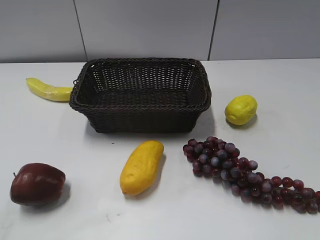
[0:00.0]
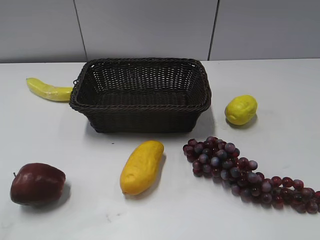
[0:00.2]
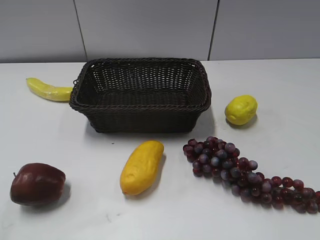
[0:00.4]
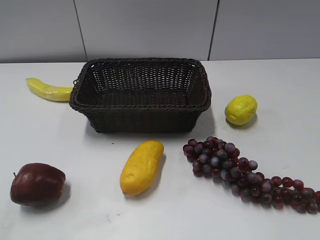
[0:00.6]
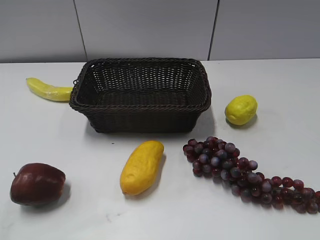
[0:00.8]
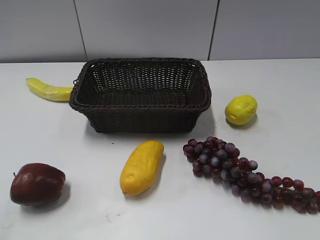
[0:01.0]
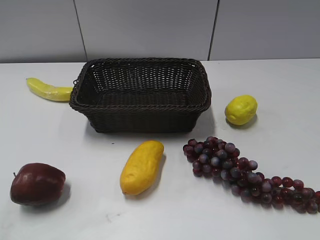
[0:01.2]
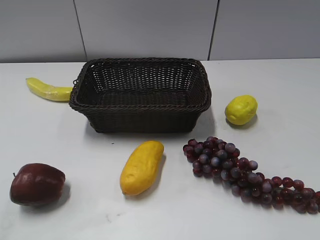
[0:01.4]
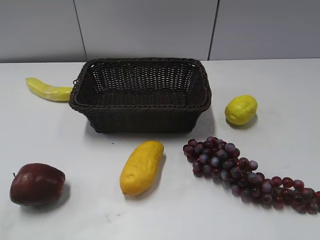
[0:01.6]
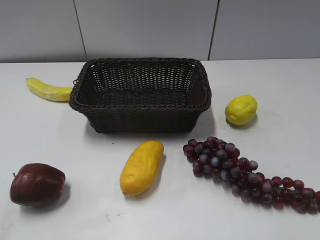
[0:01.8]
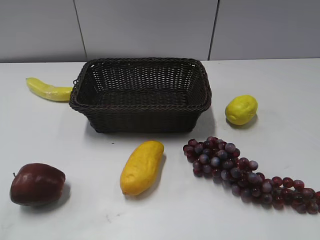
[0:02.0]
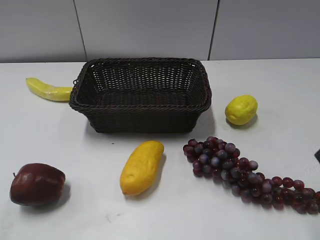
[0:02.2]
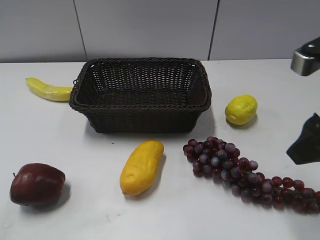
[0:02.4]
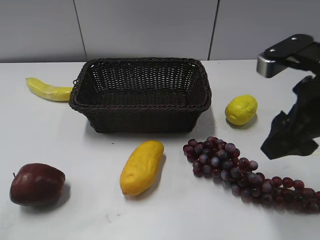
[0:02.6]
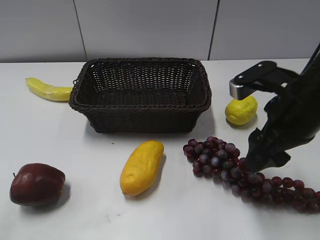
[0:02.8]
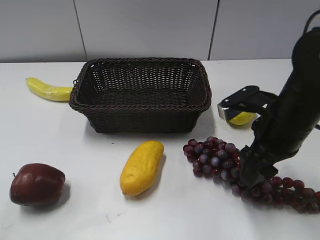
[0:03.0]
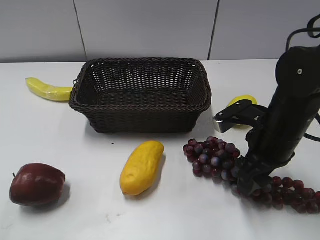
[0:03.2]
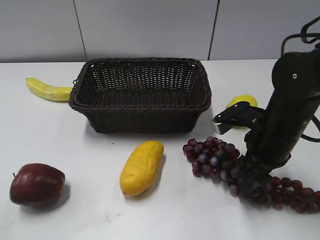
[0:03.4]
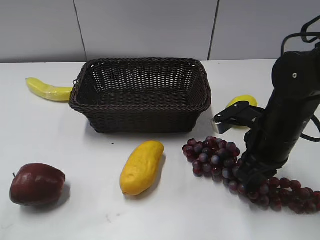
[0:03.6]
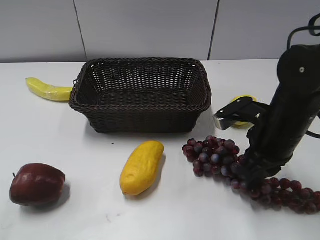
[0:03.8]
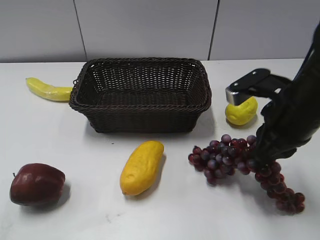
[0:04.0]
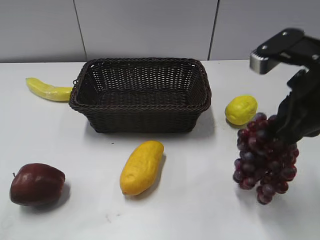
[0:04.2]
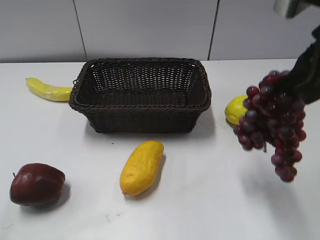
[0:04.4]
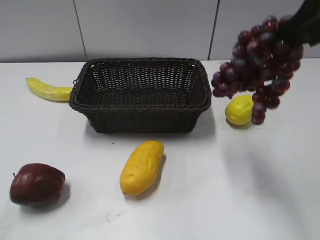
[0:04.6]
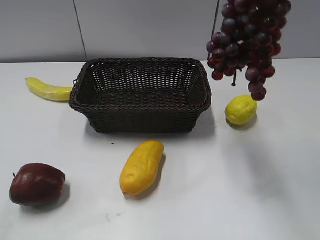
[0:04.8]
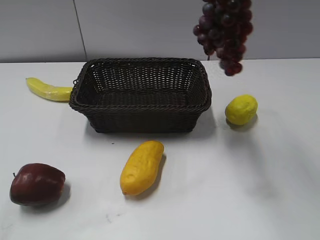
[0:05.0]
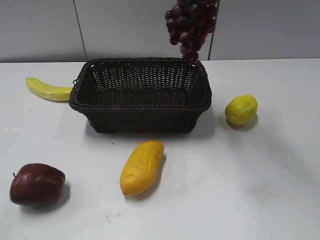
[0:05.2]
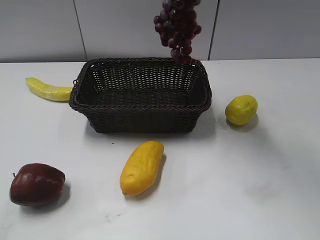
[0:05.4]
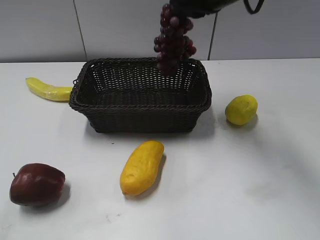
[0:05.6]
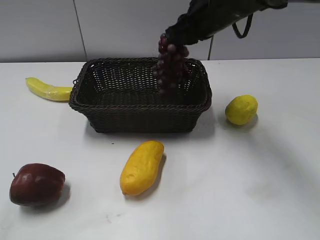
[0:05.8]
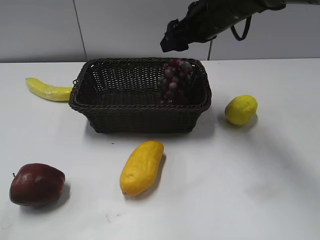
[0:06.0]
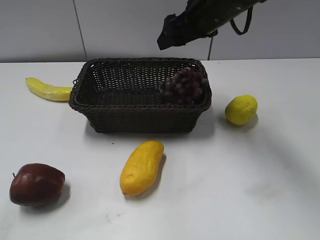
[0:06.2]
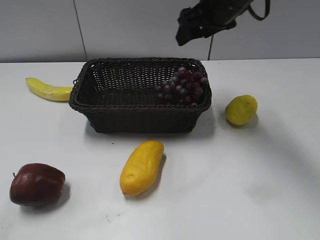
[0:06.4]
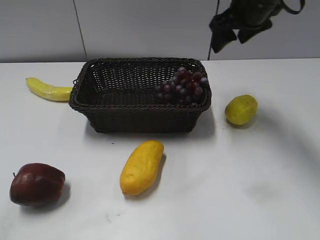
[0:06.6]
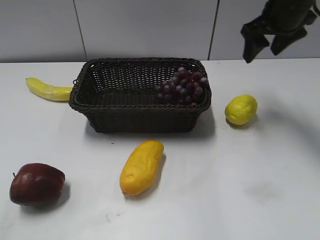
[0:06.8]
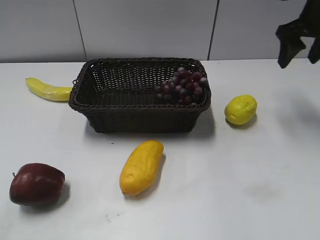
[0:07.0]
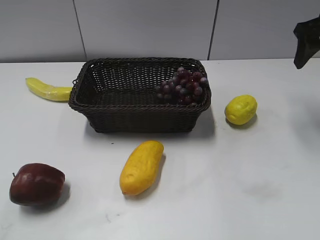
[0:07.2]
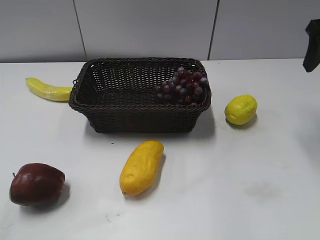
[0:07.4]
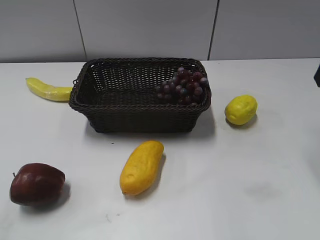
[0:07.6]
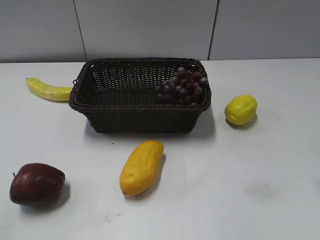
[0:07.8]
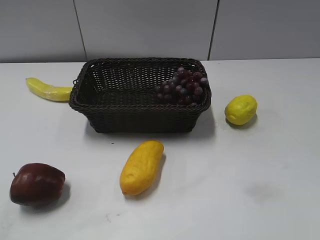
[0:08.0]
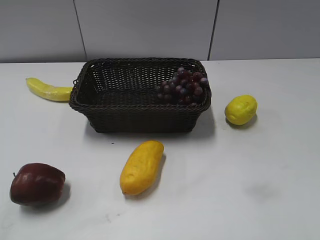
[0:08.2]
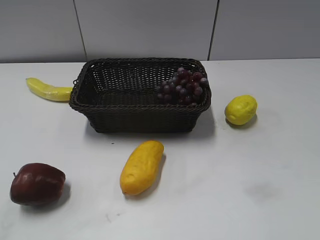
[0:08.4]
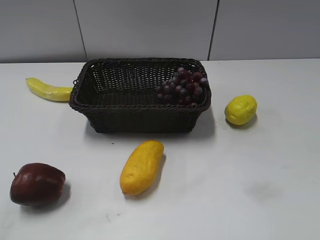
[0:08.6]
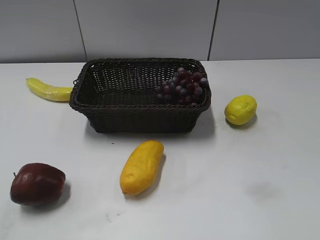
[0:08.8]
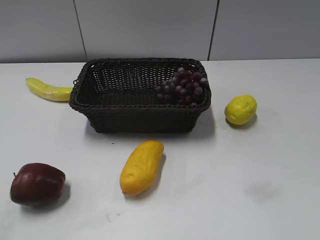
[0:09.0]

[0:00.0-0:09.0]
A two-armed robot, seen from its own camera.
Step, 0:02.2 to 0:04.0: Grasp the grape with right gripper.
Step, 0:04.2 to 0:06.0: Place the grape in the basket with right gripper.
0:01.6 to 0:03.0: The right gripper goes about 25 cm forward, downward and to the left.
0:03.0 to 0:04.4: The right gripper shifts approximately 15 cm upward, and closes up.
0:04.4 to 0:06.0: The right gripper moves forward, to the left and downward, roughly 25 cm, and opens up.
0:06.0 to 0:07.6: The right gripper travels to the right and backward by roughly 25 cm.

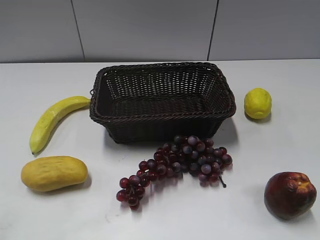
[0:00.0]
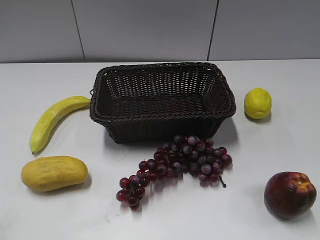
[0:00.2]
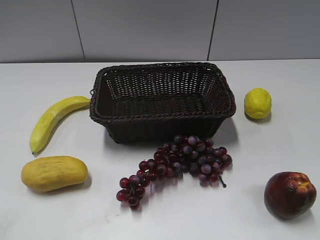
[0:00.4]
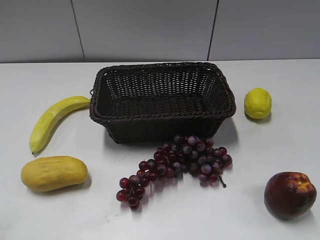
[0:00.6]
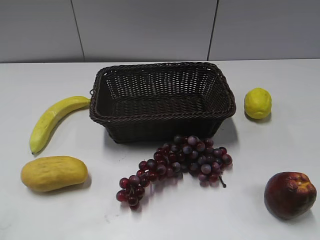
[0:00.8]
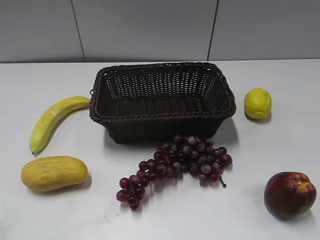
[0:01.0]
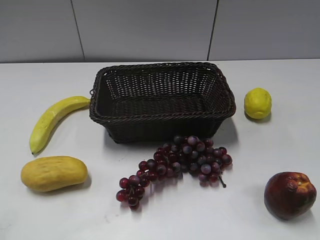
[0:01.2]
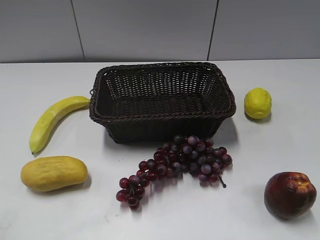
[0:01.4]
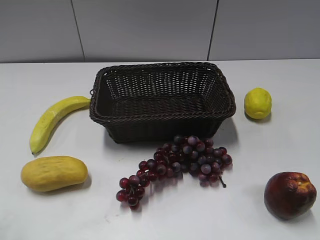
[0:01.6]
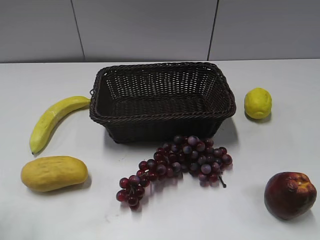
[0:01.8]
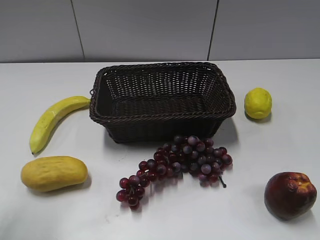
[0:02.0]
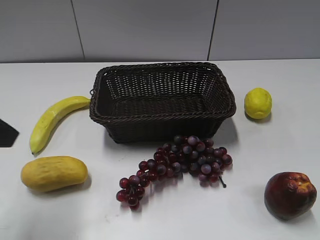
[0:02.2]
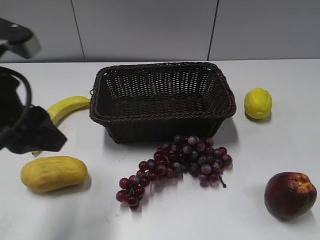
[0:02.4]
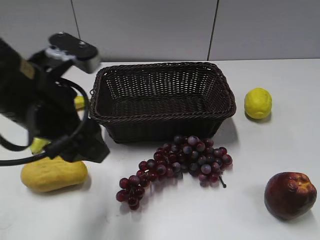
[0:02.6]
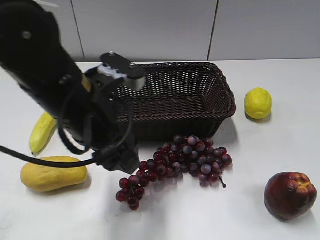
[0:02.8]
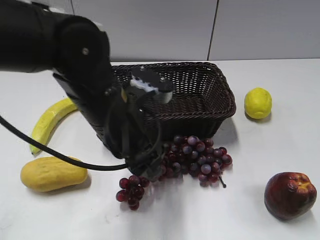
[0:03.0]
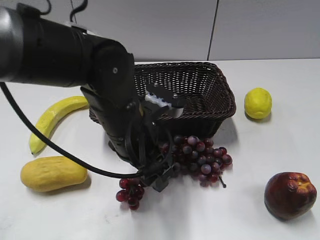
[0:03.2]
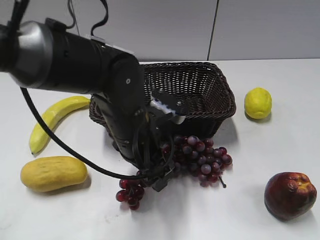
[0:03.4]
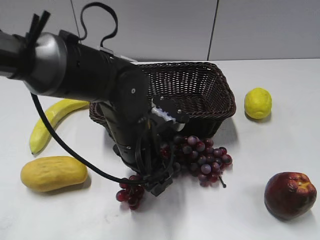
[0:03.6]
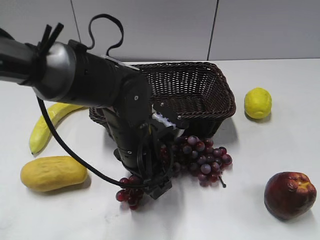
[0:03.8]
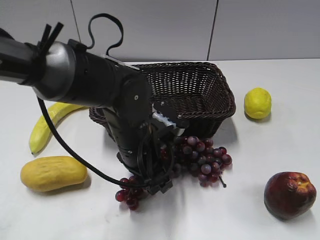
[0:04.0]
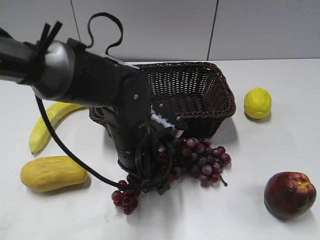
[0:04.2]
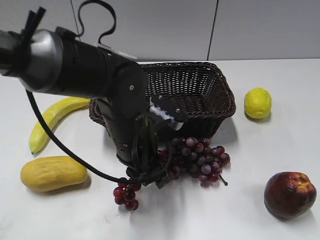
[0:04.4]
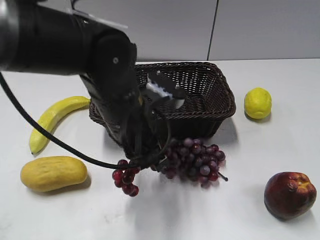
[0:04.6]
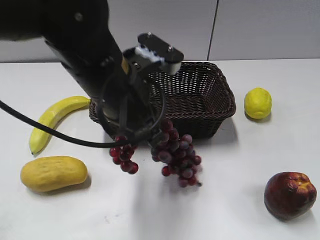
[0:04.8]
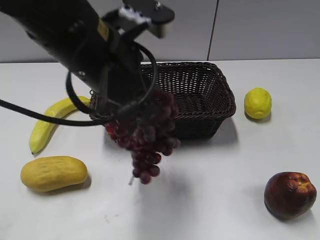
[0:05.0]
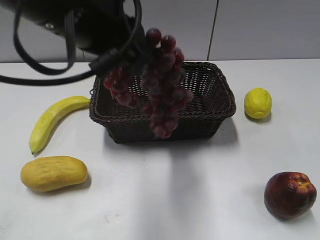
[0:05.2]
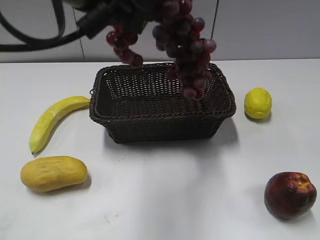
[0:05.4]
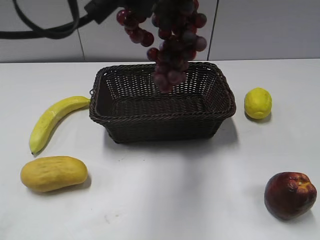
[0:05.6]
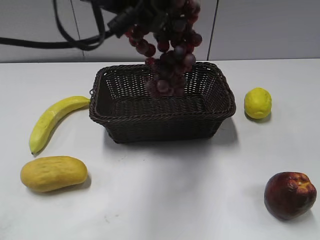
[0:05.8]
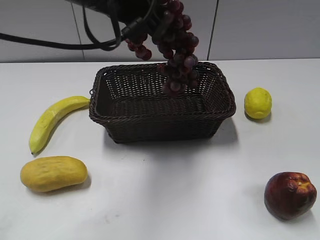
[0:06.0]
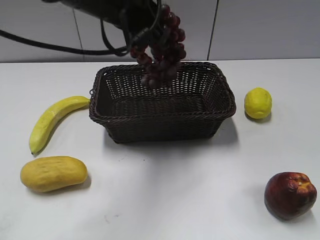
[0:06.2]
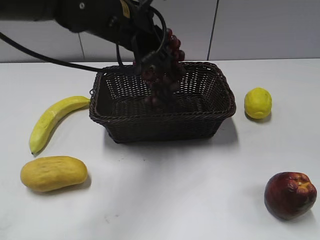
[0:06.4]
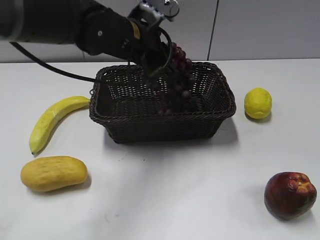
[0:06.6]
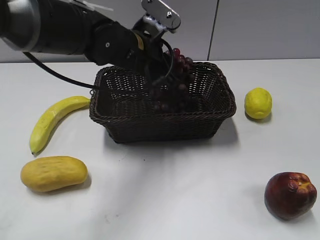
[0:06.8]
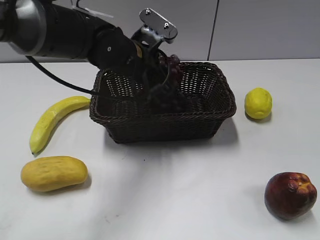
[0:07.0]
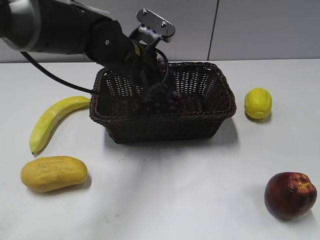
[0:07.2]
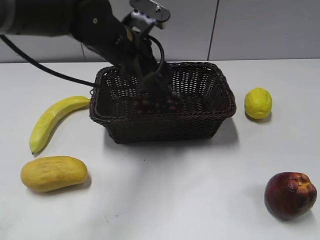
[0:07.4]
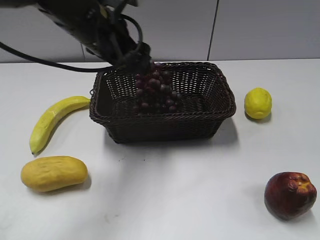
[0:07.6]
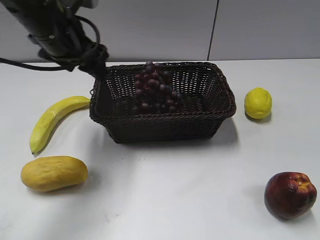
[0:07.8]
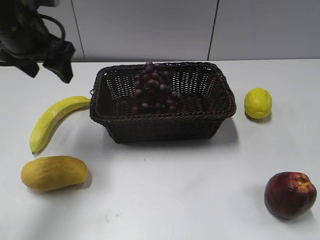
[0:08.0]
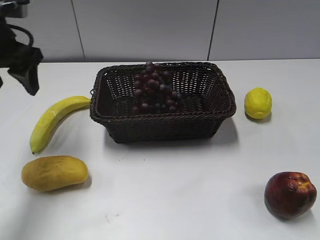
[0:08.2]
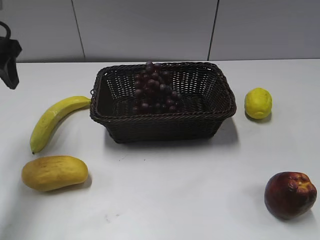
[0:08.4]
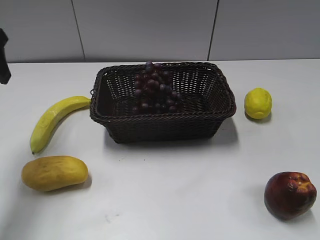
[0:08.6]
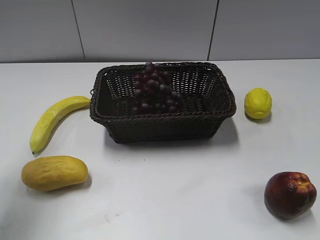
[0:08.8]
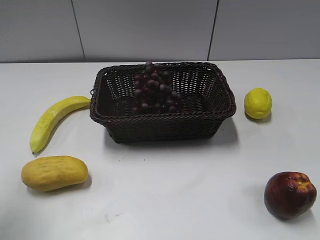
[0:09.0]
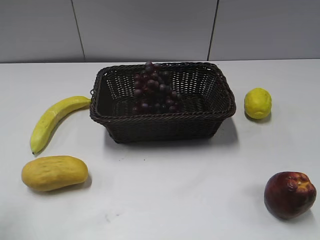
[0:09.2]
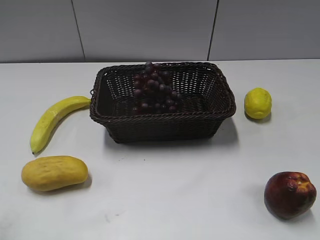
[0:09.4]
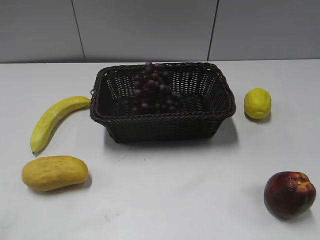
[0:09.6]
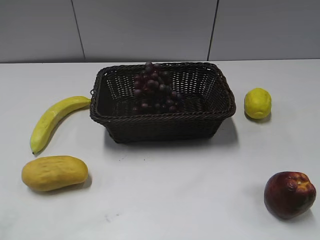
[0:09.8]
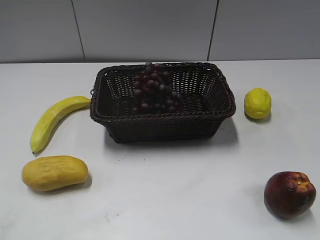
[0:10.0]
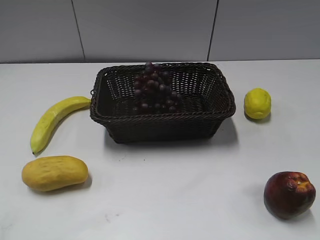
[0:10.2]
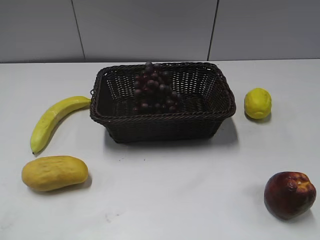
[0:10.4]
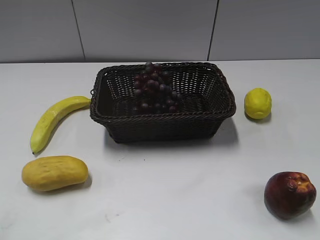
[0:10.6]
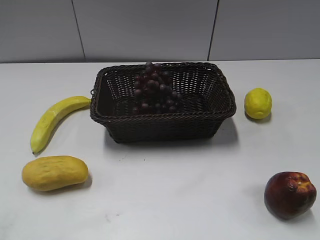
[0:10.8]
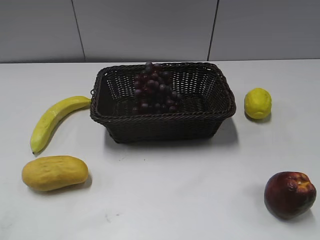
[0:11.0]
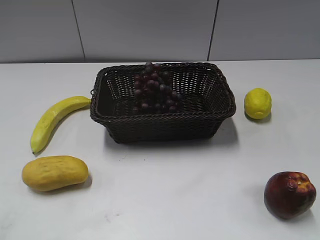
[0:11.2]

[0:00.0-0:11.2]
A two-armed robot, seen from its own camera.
Step, 0:02.2 to 0:04.0: Grasp the grape with left gripper.
Step, 0:04.2 to 0:07.2: Place the grape in the basket with left gripper.
0:01.6 to 0:03.2: The left gripper moves to the right, forward and downward, roughly 35 cm.
0:03.2 to 0:04.8: The left gripper heads upward, covering some 5 cm, and closes.
0:04.8 to 0:06.4: The left gripper shifts about 10 cm forward.
0:06.4 to 0:08.0: The left gripper goes some 15 cm to the left, and opens up.
0:08.0 to 0:09.6: The left gripper heads backward, covering roughly 30 cm.
